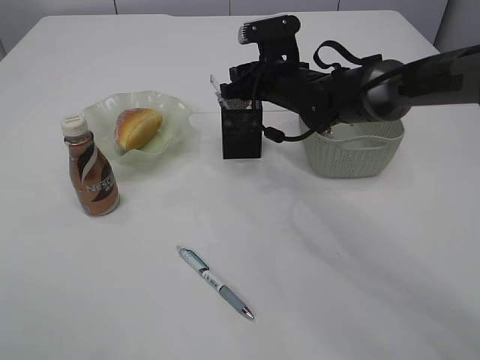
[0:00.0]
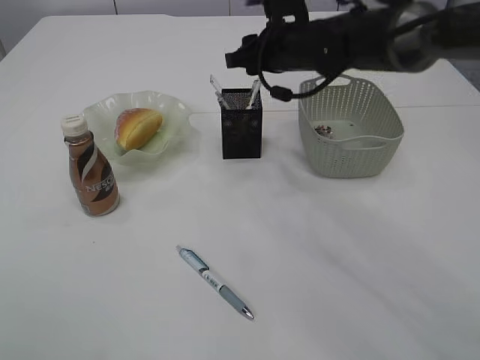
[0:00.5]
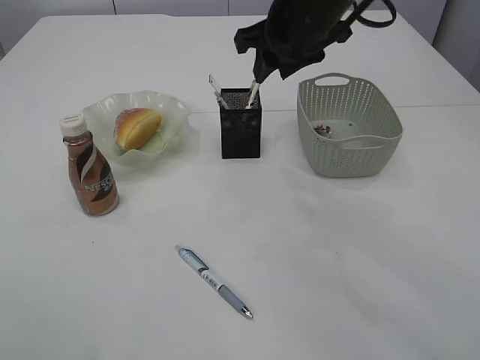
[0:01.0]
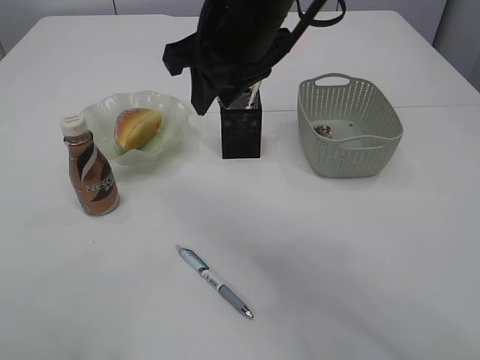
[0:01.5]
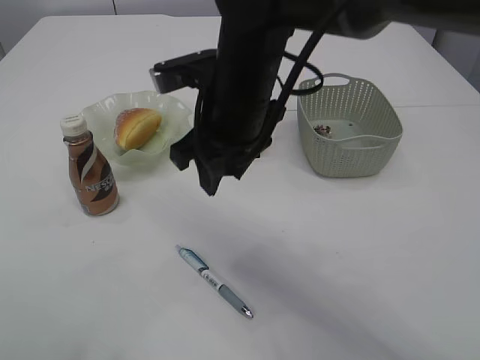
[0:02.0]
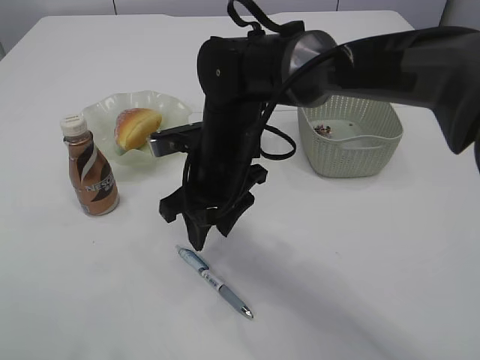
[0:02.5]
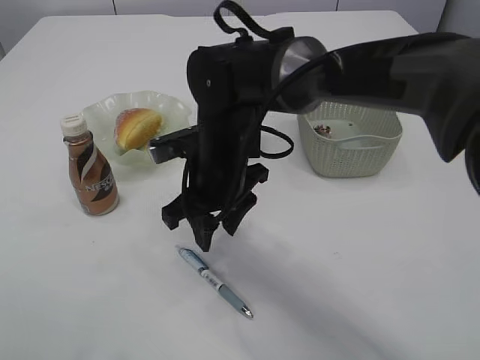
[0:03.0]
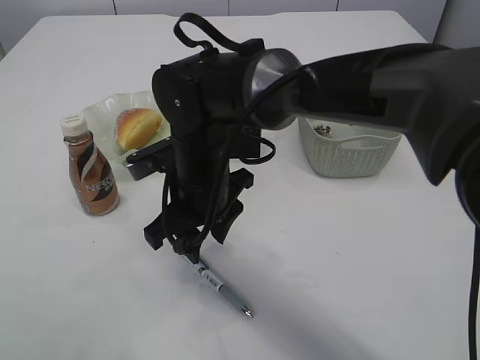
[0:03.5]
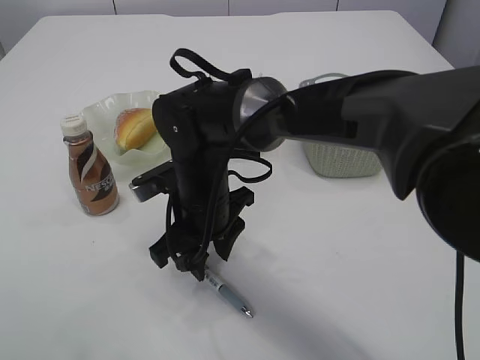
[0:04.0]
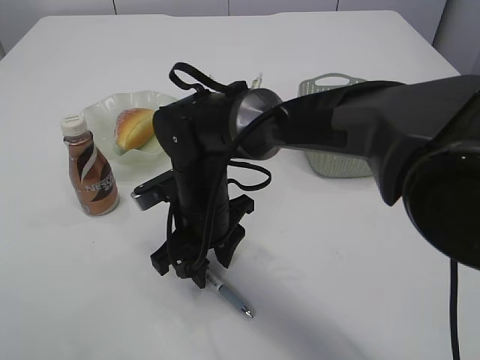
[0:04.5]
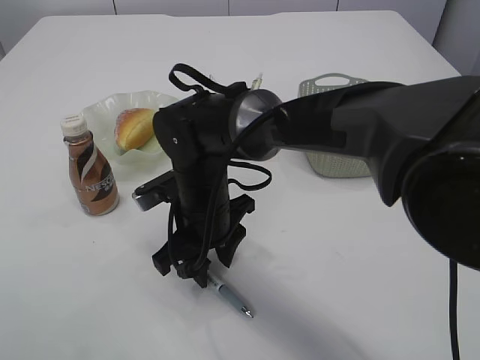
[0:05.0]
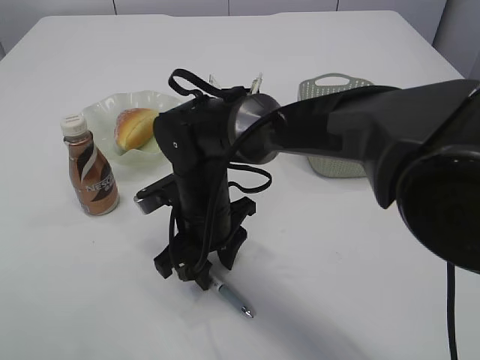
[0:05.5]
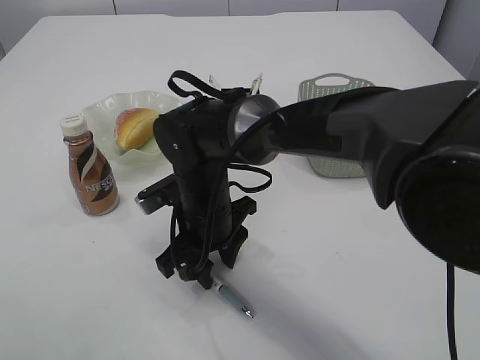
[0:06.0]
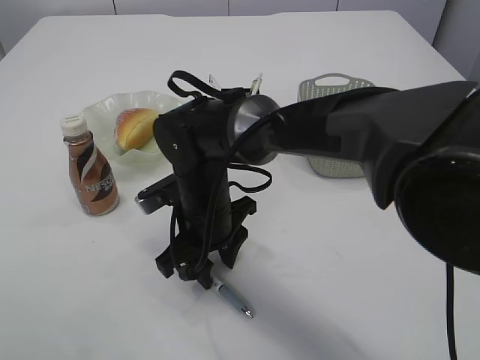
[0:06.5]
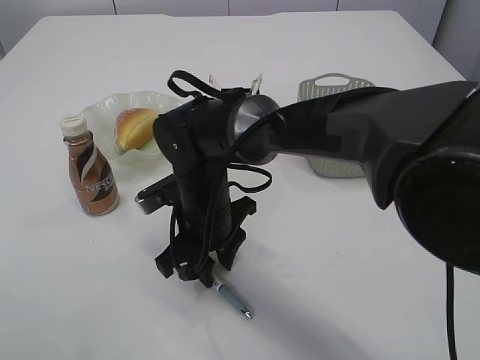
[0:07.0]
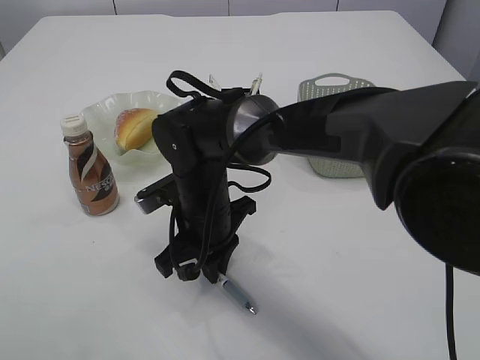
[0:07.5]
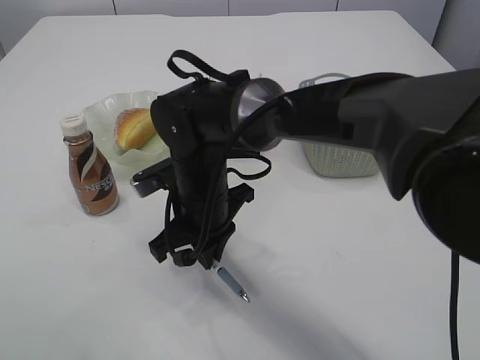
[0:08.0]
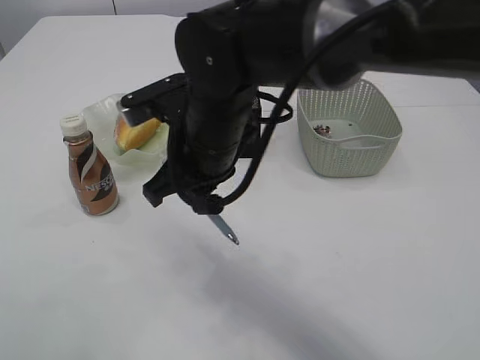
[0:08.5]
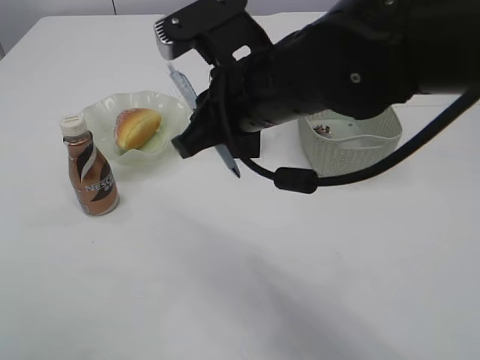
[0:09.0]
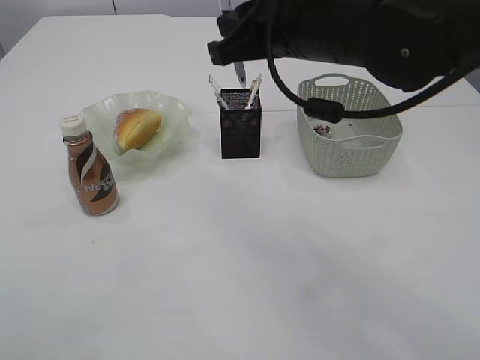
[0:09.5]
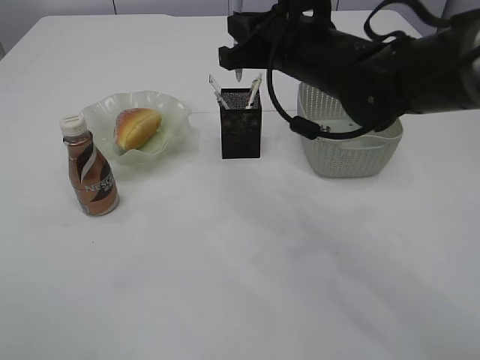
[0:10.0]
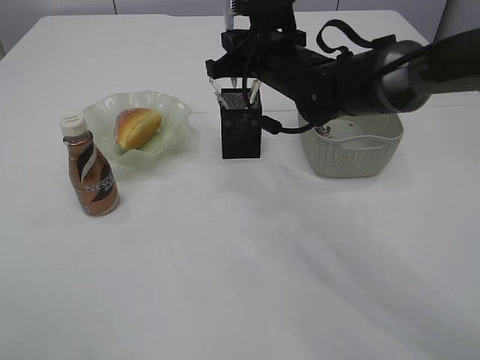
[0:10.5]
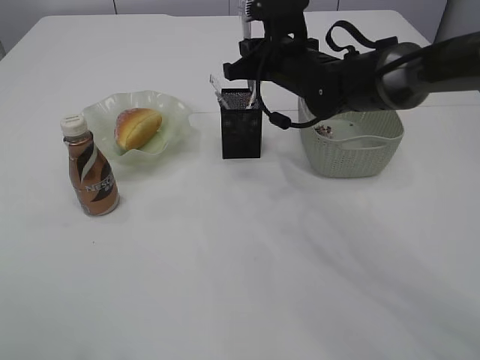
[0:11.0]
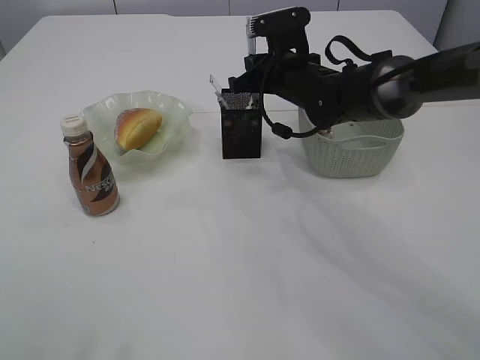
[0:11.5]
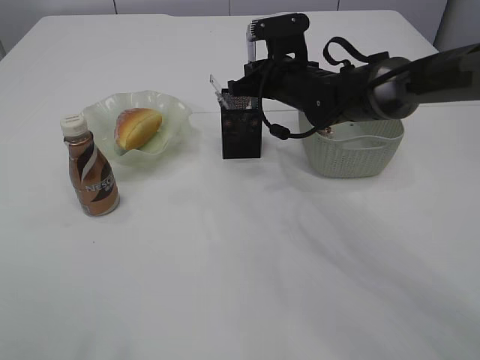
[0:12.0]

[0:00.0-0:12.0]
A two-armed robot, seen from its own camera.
Step, 0:01.0 to 0:08.0: Pick up the pen with right arm.
0:00.0 to 0:02.0: The right gripper heads backward, upward and to the left, covering some 20 cm.
0:02.0 to 0:04.0: The right gripper travels downward by about 10 cm.
0:04.0 to 0:06.0: The grippers move only a little.
0:06.0 to 0:08.0: The right gripper closes.
0:08.0 to 0:10.0: The right gripper goes approximately 20 cm upward, to the right and forward.
0:10.0 to 0:12.0: The right gripper is displaced forward and downward by roughly 15 cm.

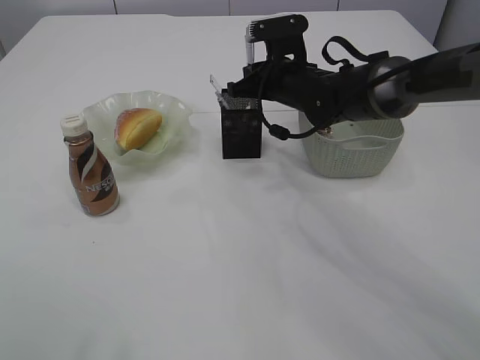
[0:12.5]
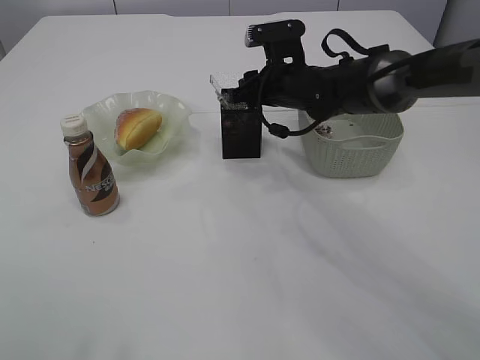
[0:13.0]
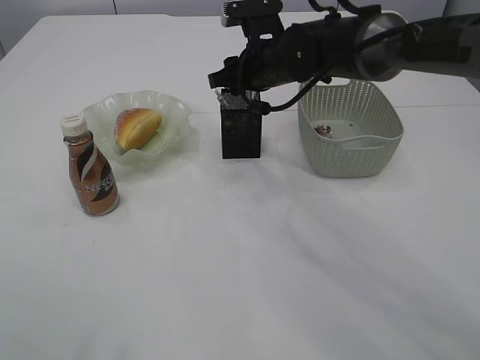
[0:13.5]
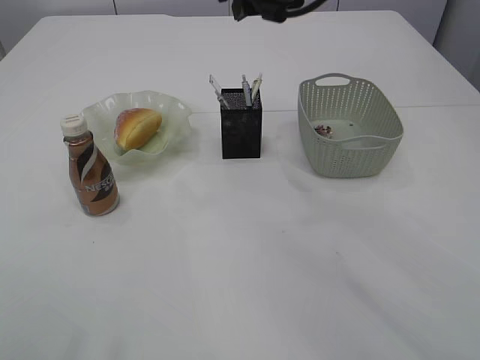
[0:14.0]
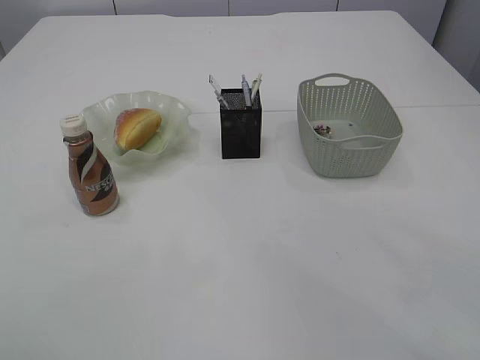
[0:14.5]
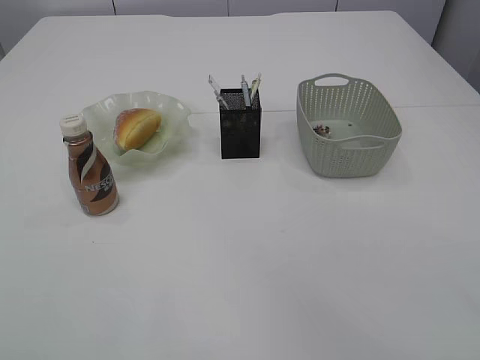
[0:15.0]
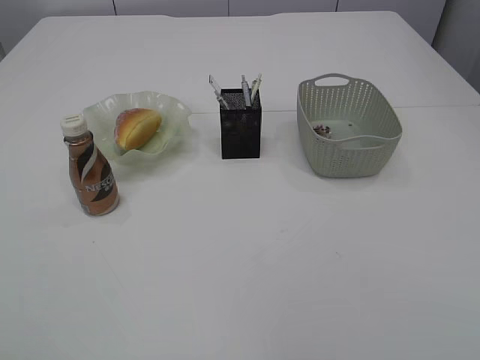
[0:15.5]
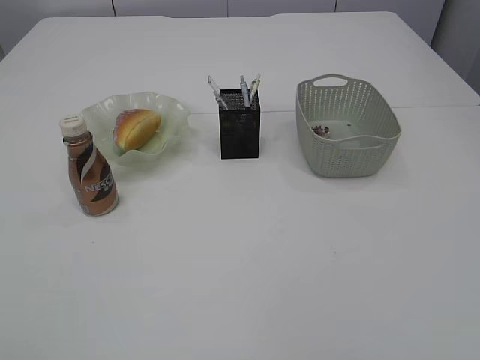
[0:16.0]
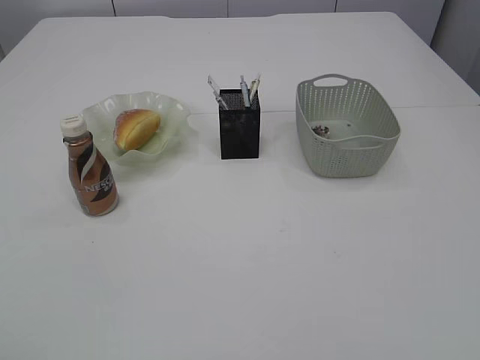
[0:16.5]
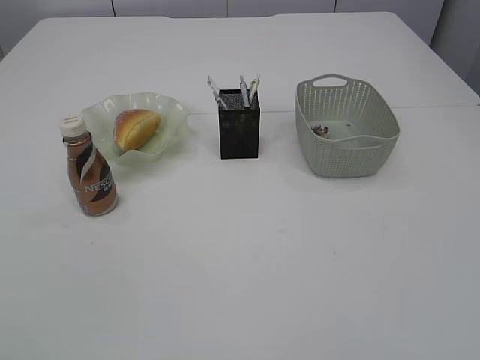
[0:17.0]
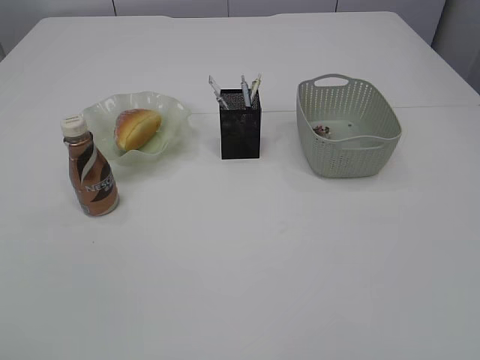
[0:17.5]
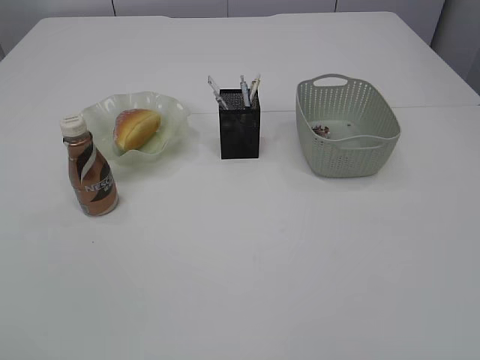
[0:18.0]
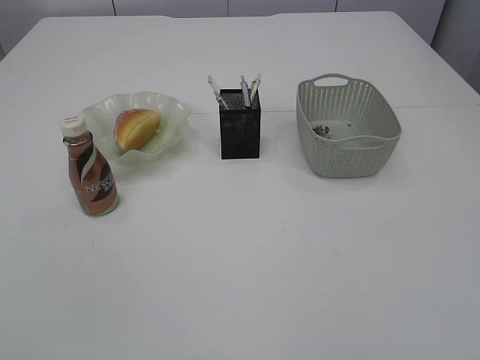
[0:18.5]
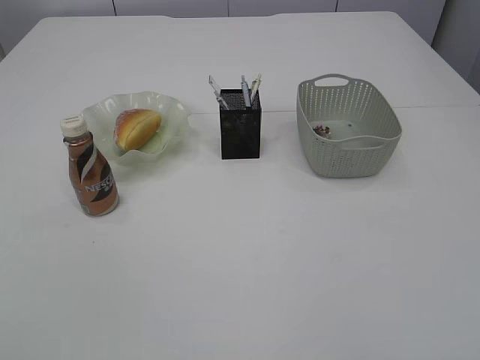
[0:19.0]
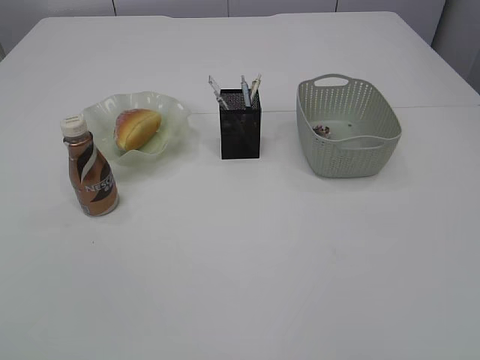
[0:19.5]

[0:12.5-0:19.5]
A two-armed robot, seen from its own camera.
0:12.5 to 0:14.5: The right gripper is displaced upward and backward by approximately 30 cm, and opens its fingers. Meanwhile the left gripper opens up.
0:14.5 to 0:16.0: The right gripper is displaced backward and to the right by approximately 40 cm; the left gripper travels backward by approximately 20 cm.
